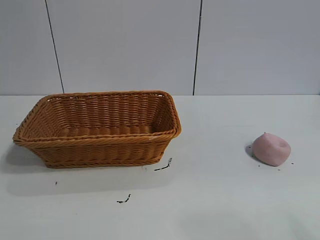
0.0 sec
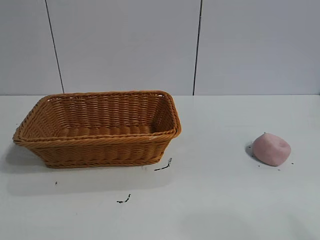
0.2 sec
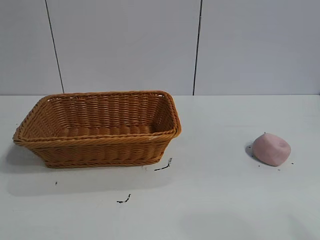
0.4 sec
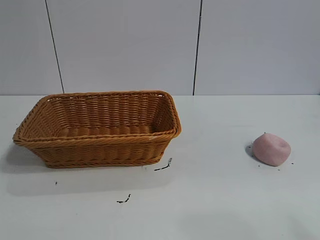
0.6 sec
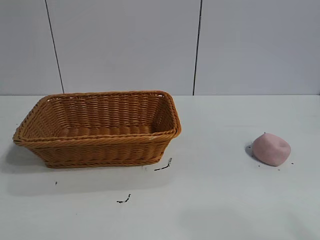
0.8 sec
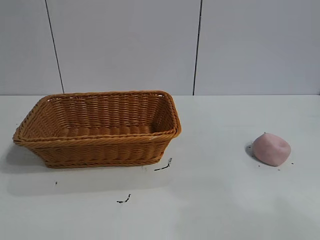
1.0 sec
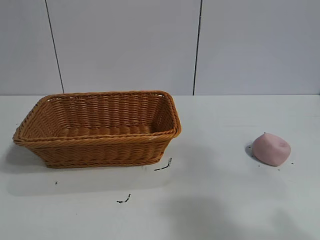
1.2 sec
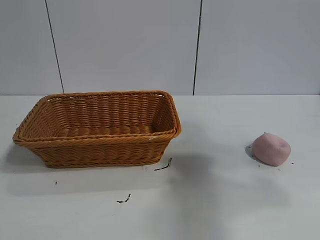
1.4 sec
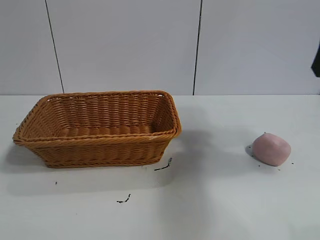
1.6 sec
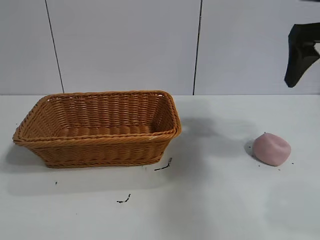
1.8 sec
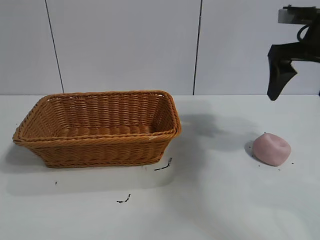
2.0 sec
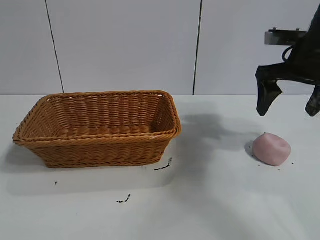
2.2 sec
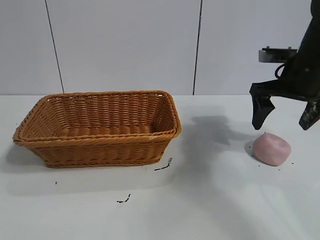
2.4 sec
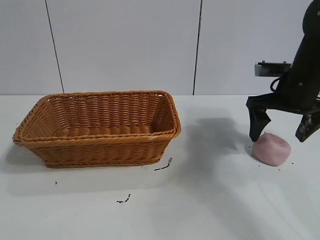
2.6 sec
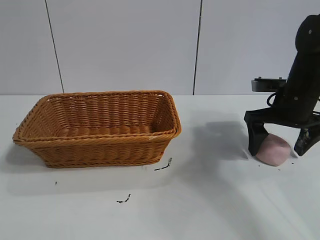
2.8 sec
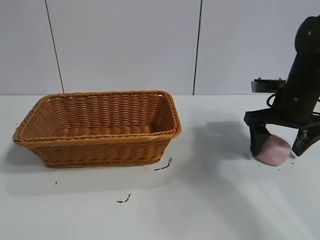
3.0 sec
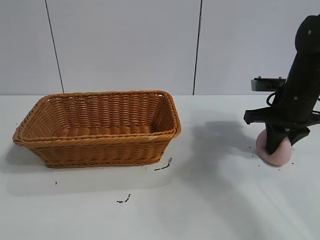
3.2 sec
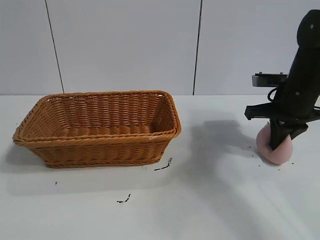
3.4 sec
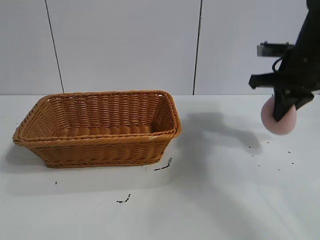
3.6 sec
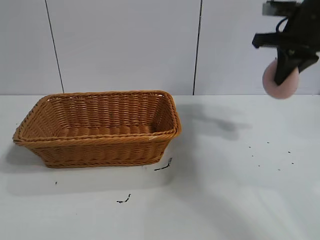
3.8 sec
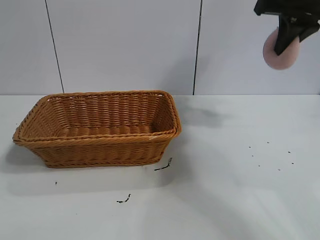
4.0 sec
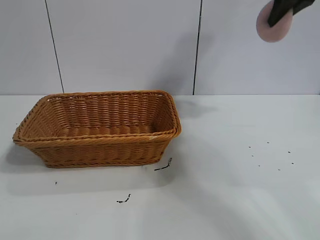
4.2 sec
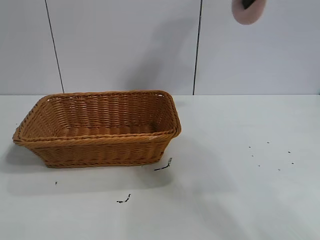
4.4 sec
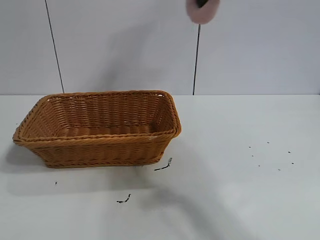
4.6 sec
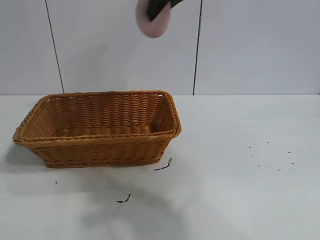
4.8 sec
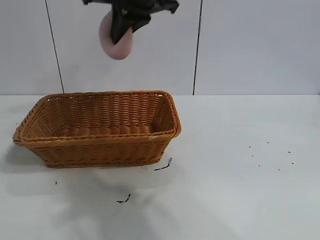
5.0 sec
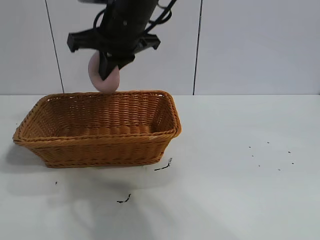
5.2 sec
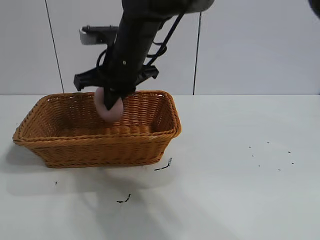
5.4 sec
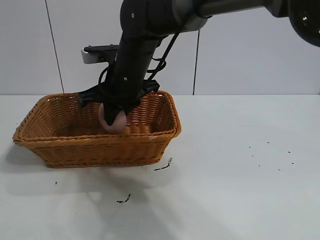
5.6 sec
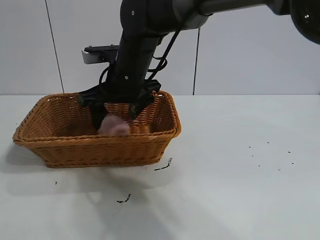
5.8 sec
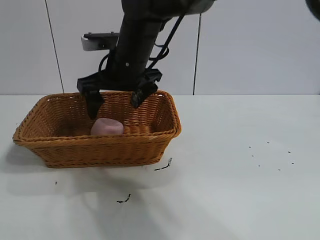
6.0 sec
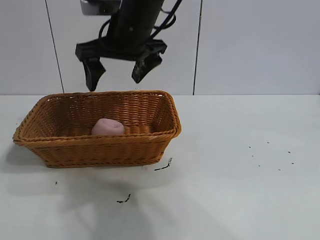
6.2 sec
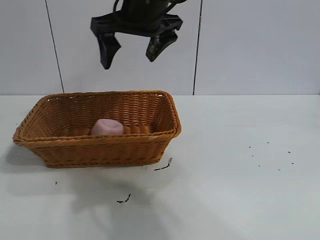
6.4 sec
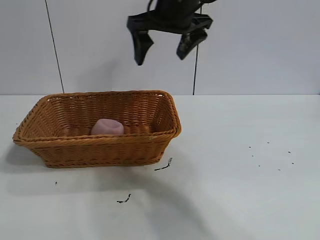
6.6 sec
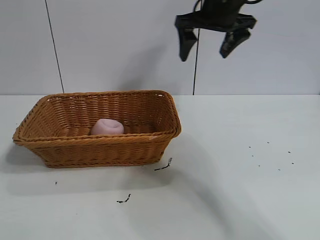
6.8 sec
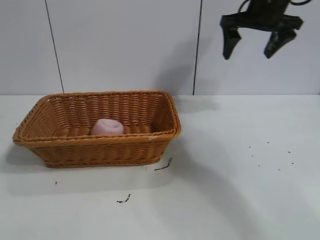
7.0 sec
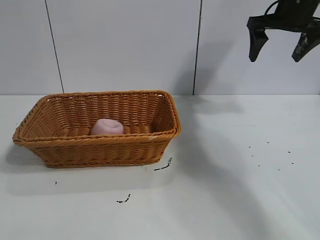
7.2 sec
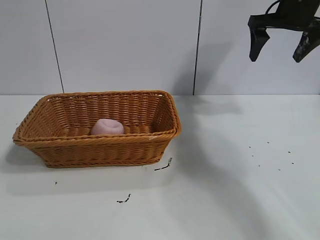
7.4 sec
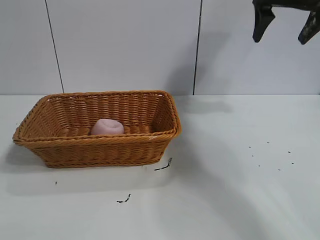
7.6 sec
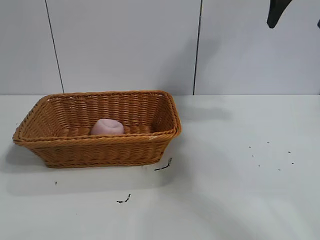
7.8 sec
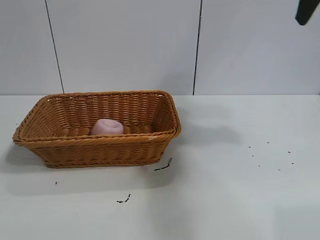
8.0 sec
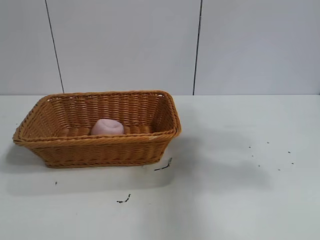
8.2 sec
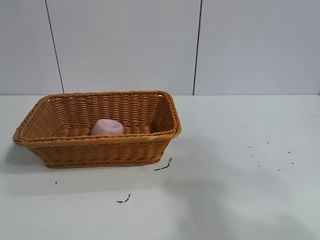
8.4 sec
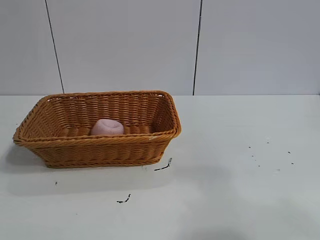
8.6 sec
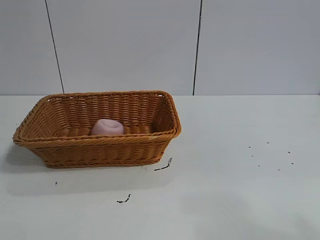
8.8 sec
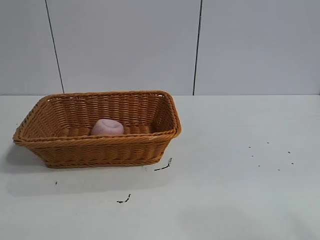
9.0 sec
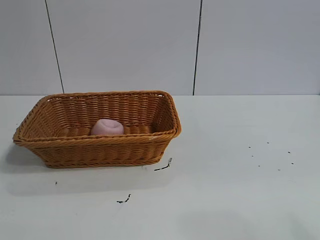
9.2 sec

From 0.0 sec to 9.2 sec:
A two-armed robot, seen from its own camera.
Task of the whole recording: pick up the peach and put it into the basket.
Step, from 0.8 sec to 3.2 sec: Grasp the peach with right gripper.
Step, from 3.4 sec to 5.8 sec: Place the peach in the basket with right gripper.
